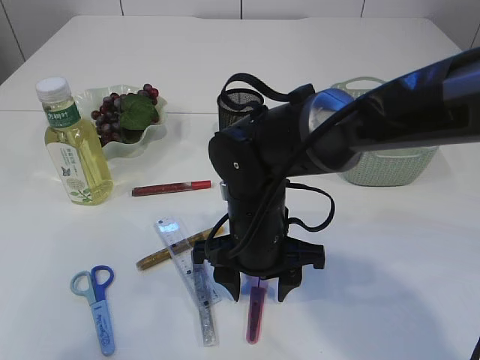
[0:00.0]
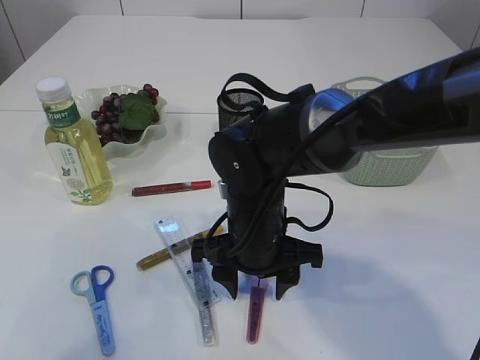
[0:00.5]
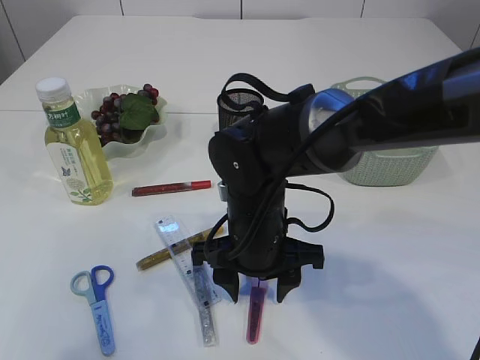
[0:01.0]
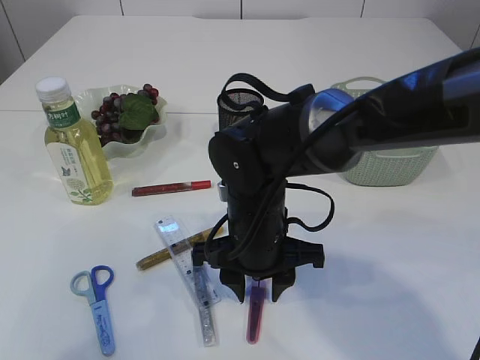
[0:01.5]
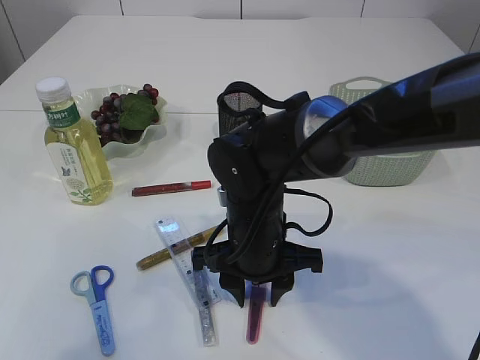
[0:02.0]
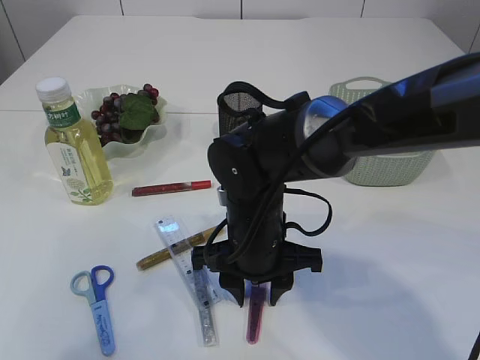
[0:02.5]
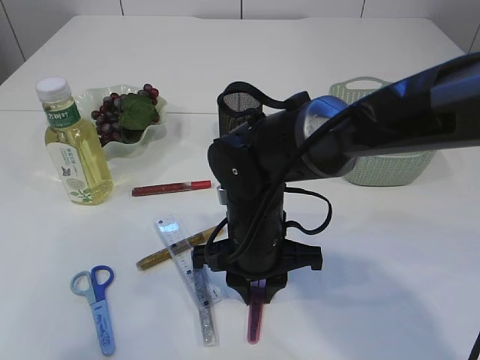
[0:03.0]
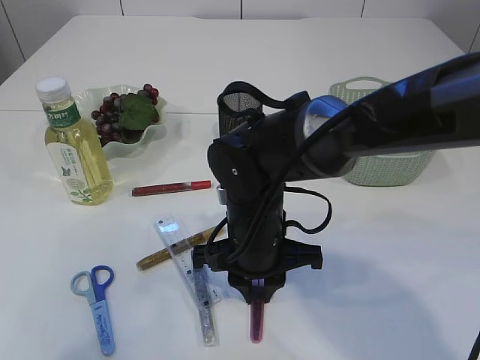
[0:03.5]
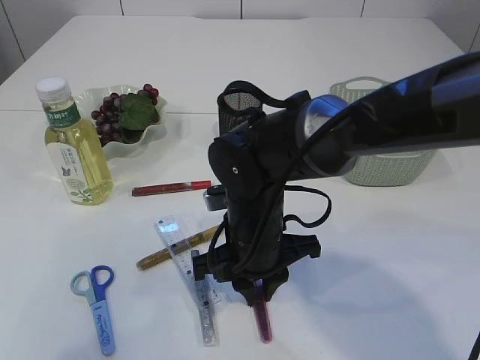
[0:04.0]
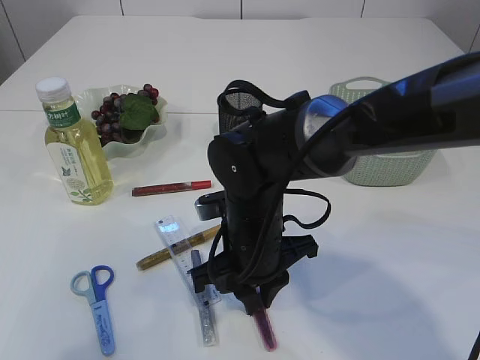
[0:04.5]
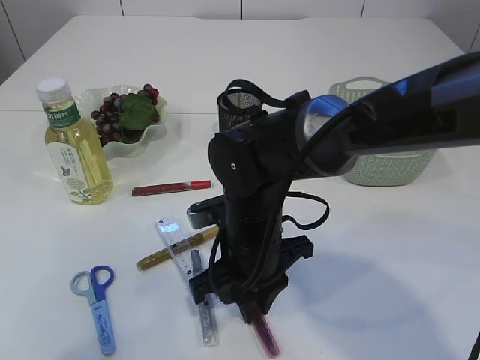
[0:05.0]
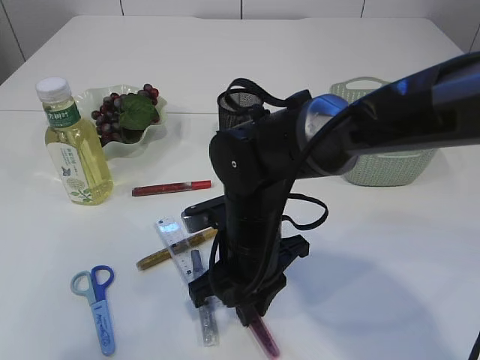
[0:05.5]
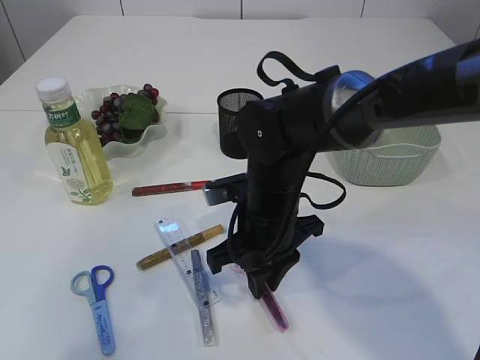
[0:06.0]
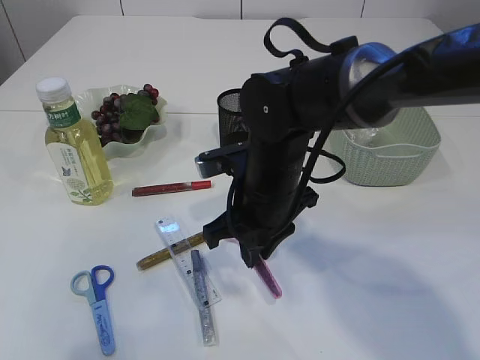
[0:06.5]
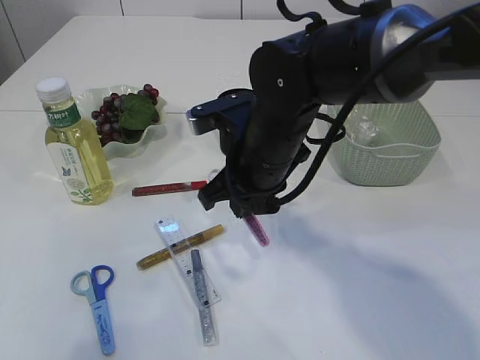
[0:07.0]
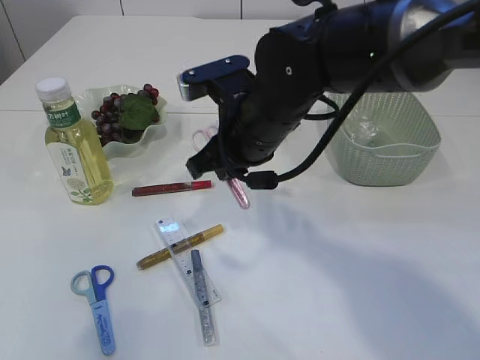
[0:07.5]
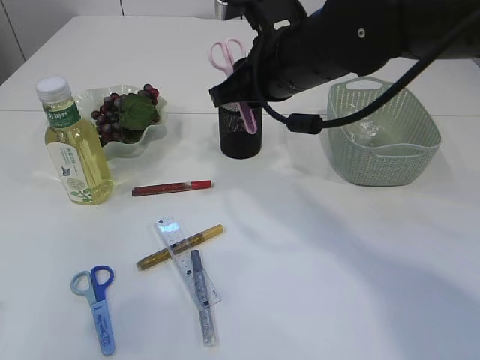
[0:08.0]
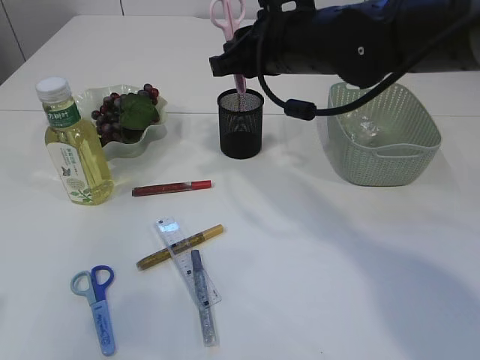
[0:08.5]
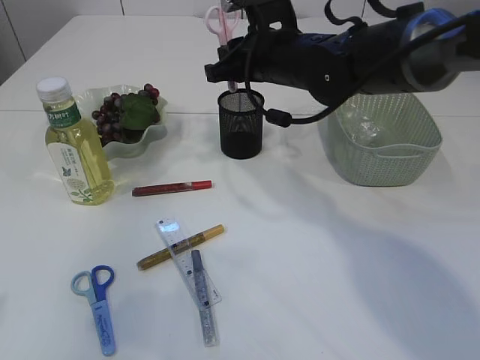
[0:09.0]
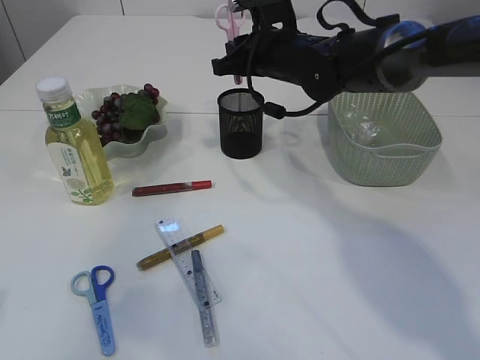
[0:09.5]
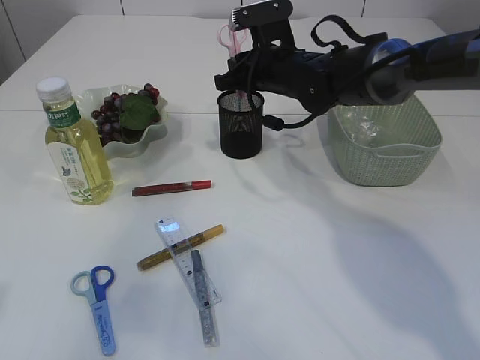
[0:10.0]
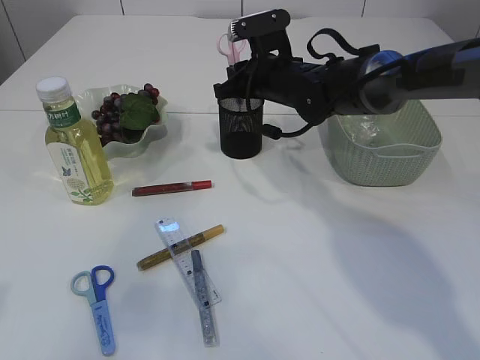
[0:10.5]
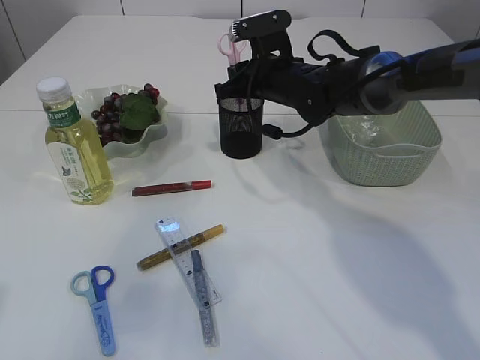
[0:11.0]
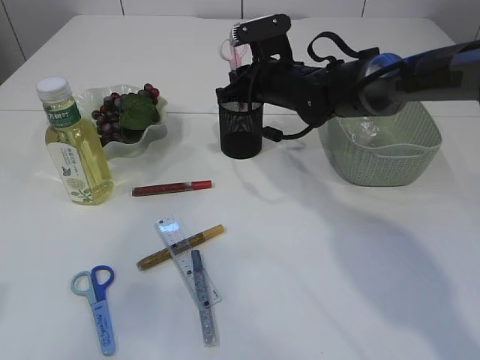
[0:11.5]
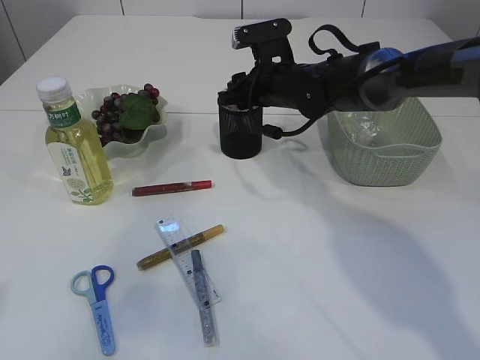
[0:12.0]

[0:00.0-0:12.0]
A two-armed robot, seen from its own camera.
Step, 0:00.0 to 0:06.5: pick up the pink scissors.
0:00.0 to 0:02.0: The two grippers keep their place.
0:02.0 to 0:04.0: The grippers stay close to where they were, moving slightly.
0:06.0 to 0:08.0: The right gripper shifts some 15 cm upward.
0:08.0 to 0:10.0: The right gripper heads forward and downward, covering approximately 15 cm.
0:10.0 to 0:12.0: The right gripper opens.

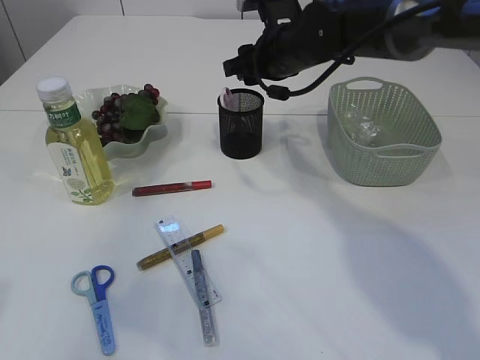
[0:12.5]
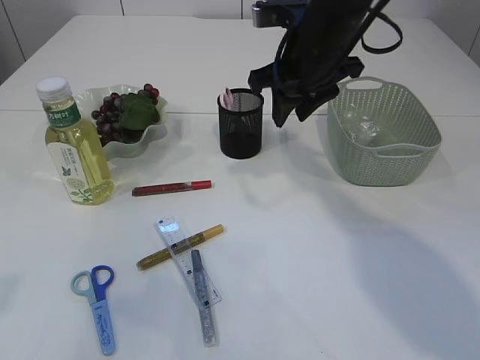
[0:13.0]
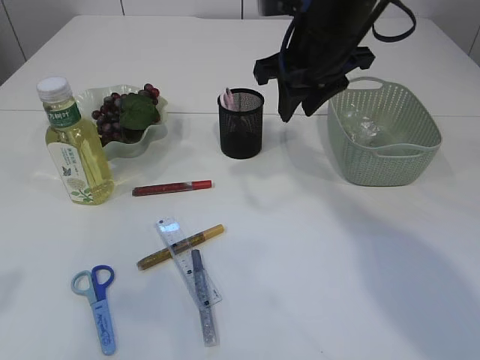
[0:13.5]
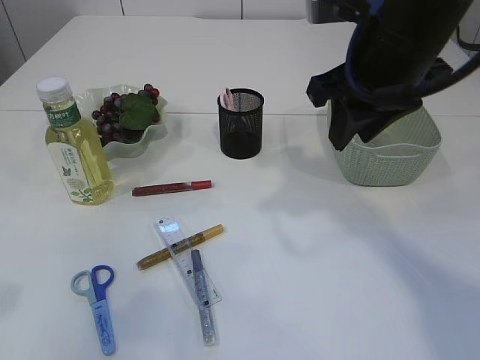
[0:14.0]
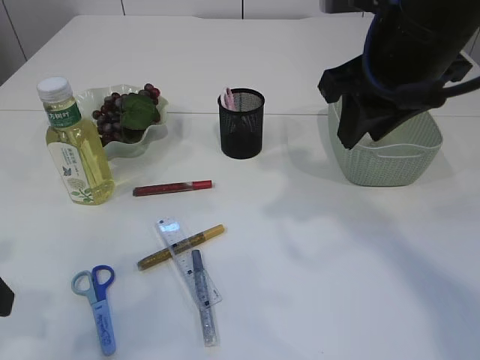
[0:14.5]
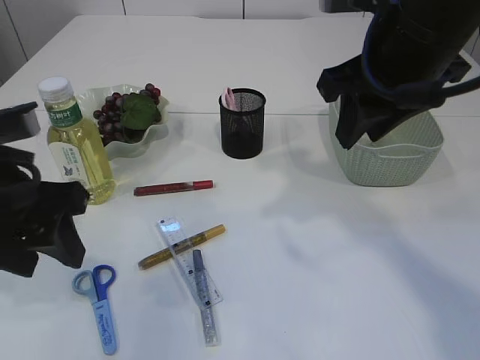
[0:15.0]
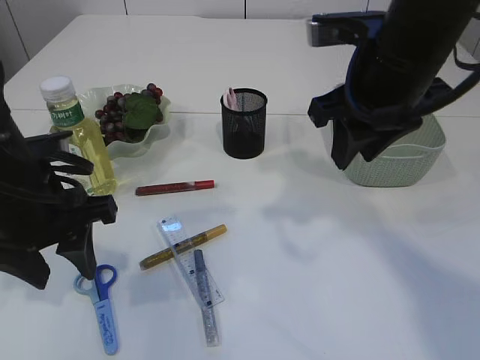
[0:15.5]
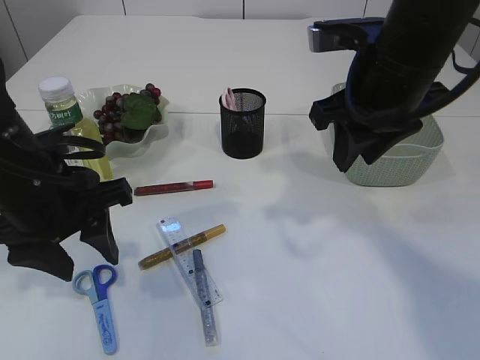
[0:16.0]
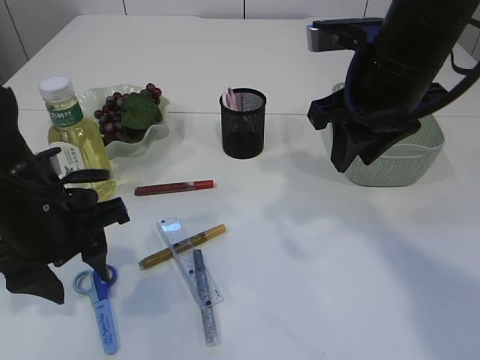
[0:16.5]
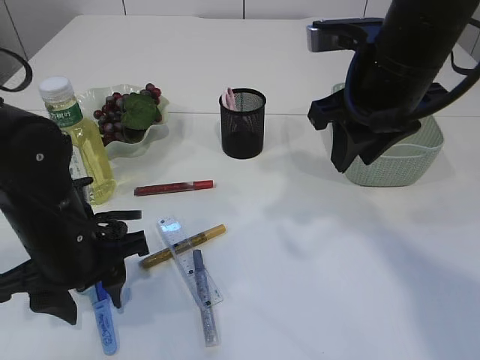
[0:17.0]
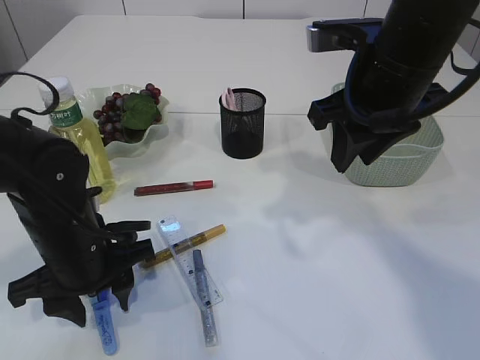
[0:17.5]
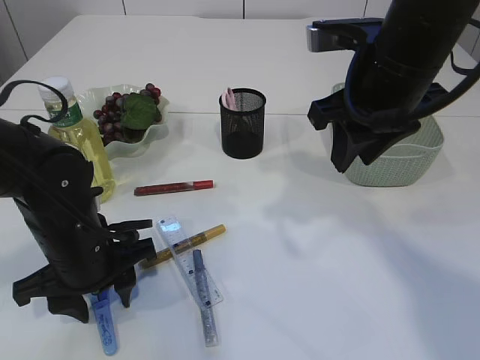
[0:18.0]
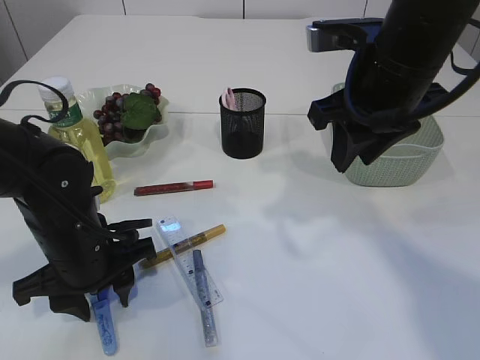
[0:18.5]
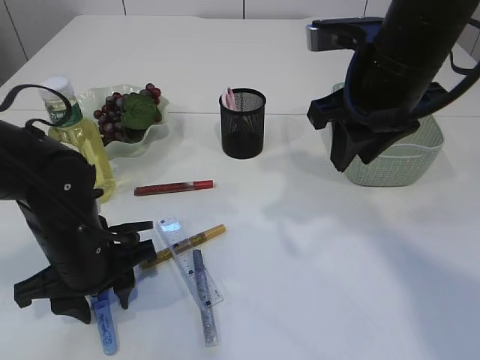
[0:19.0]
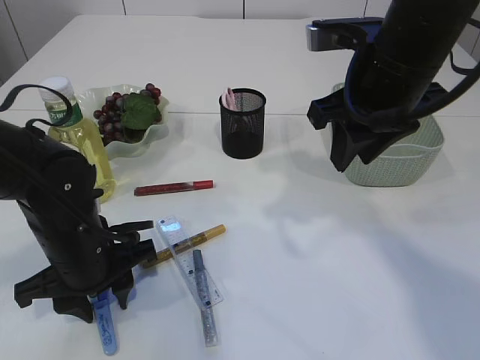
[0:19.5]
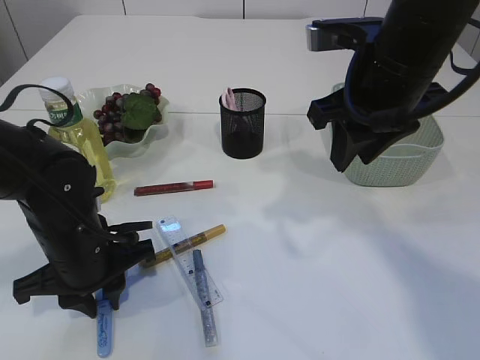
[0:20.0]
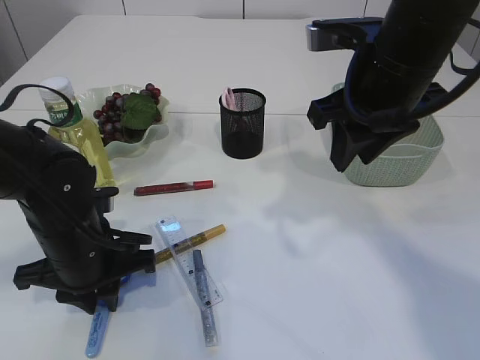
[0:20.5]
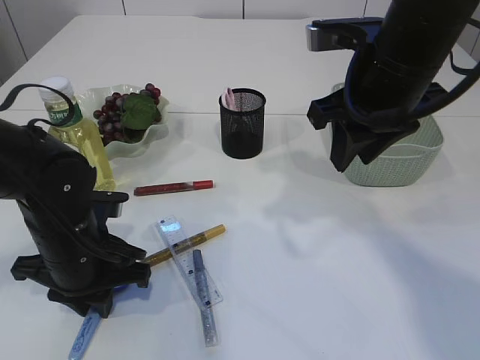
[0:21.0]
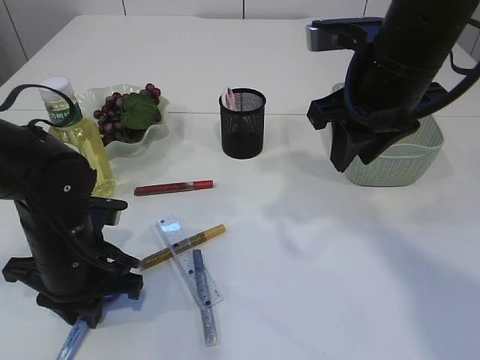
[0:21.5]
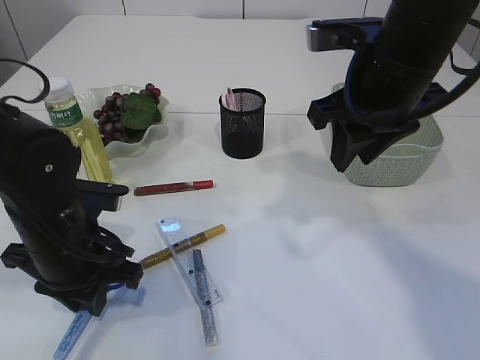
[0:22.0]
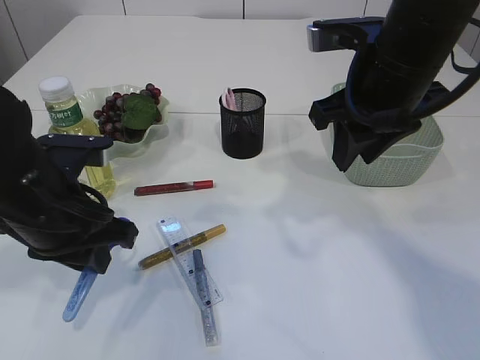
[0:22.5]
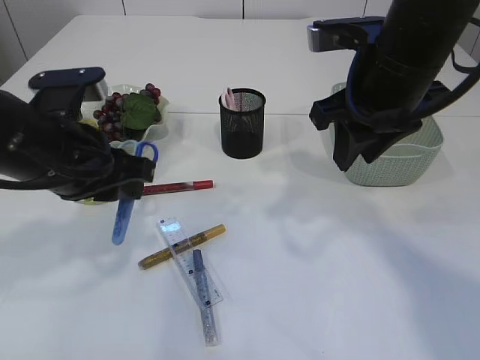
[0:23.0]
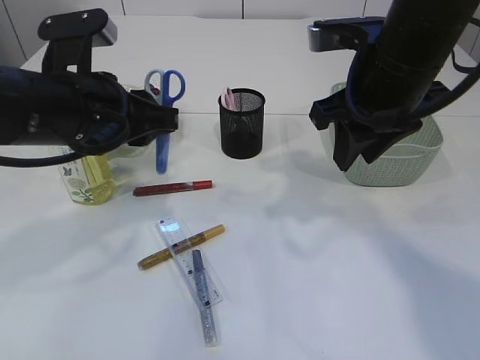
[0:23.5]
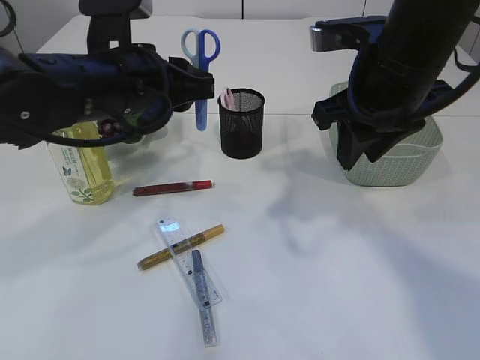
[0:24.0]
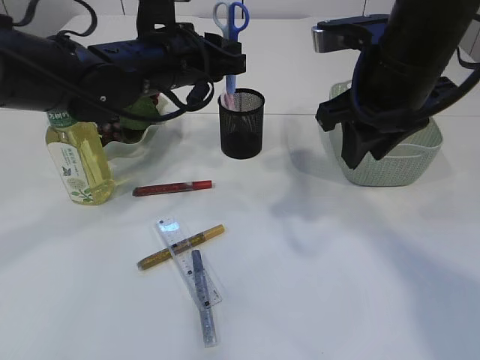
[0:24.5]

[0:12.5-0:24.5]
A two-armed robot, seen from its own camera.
Step, 0:12.5 to 0:22.5: pick up the blue scissors.
0:12.5 to 0:14.5: The left gripper travels downward by some 5 cm, while the right gripper heads backward and upward, covering some 20 cm.
0:14.5 to 0:16.5: The left gripper moves to the right, forward and downward, some 10 cm.
0:16.5 to 0:18.5: The left gripper travels downward by some 5 cm.
0:18.5 to 0:20.5: The left gripper closes its fingers.
0:20.5 to 0:22.5: The left gripper goes about 10 cm upward.
0:22.5 to 0:24.5: The left gripper moves forward and to the right, approximately 15 cm.

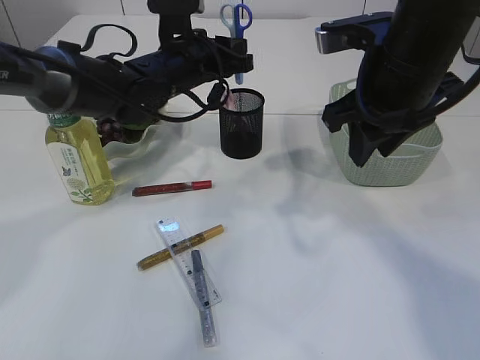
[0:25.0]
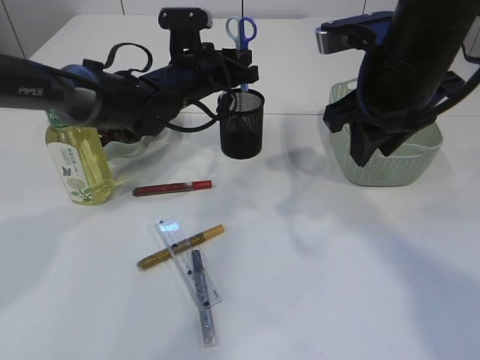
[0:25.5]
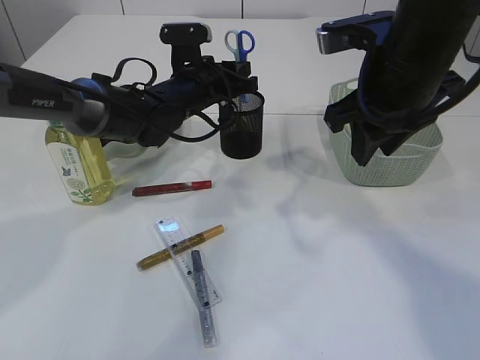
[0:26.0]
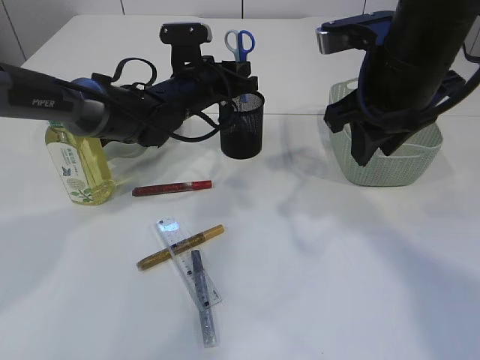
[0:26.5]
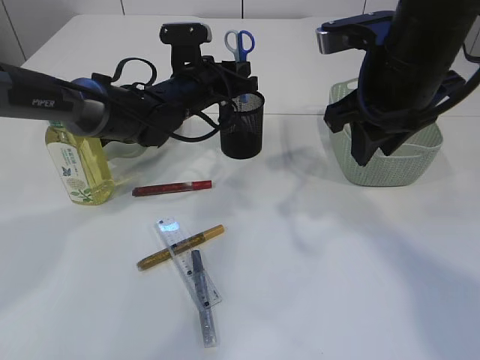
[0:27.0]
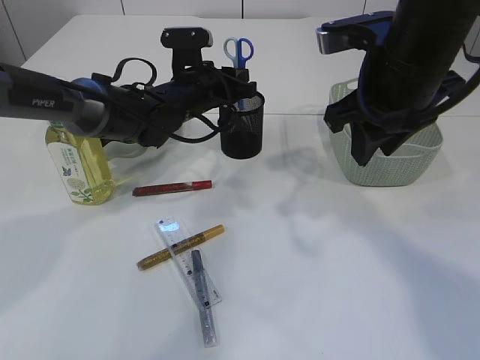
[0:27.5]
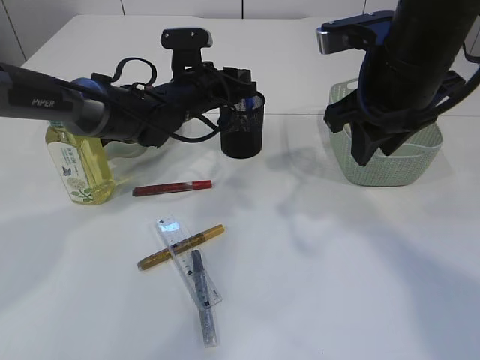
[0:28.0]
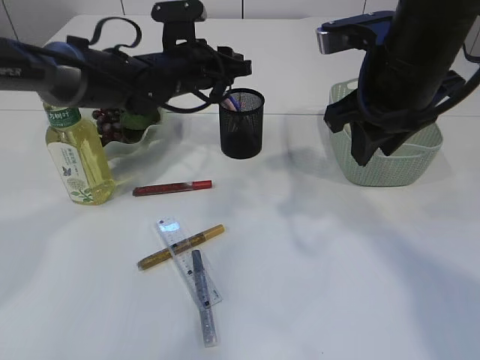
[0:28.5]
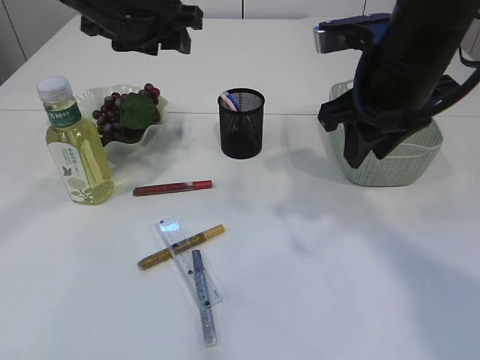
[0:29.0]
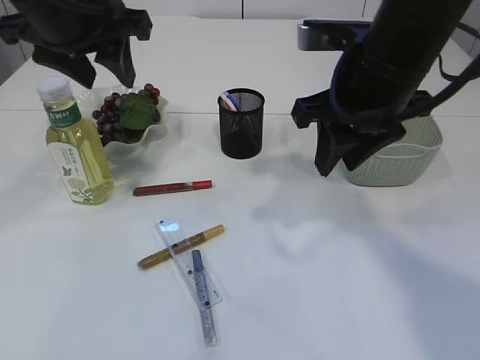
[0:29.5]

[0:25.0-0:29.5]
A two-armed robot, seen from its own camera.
Step, 0:25.0 to 0:28.5: Place the blue scissors into the pen holder.
0:25.0 to 0:27.0: The left gripper moves roughly 5 cm.
0:27.0 to 0:29.5: The left gripper goes roughly 25 cm upward, backward and to the left, and opens up.
